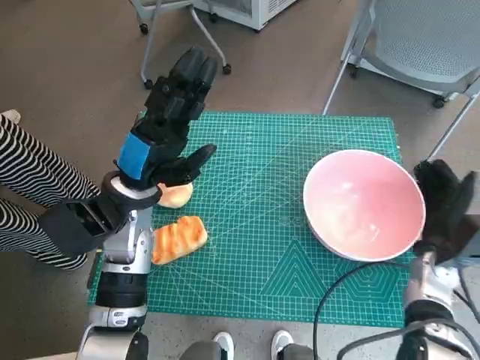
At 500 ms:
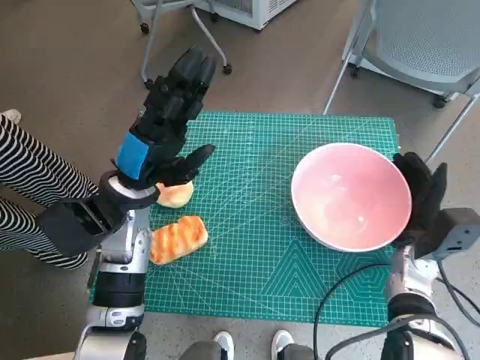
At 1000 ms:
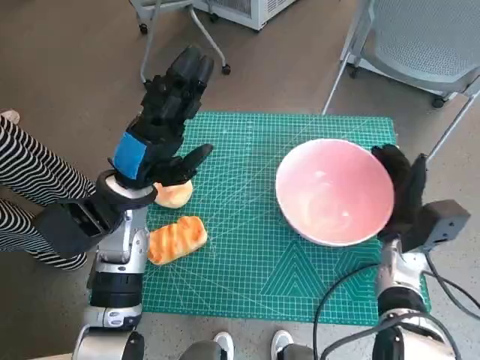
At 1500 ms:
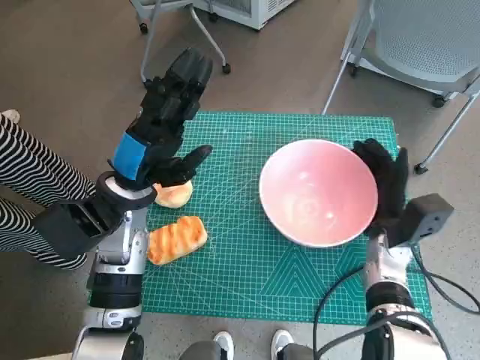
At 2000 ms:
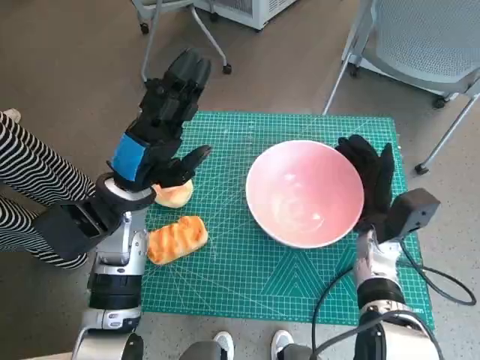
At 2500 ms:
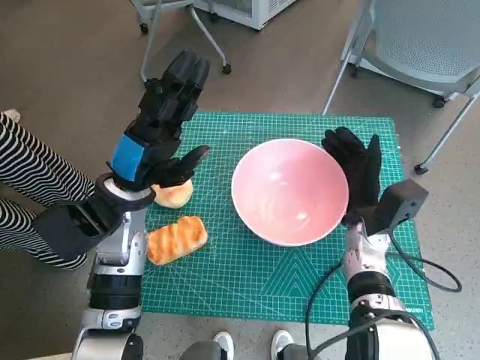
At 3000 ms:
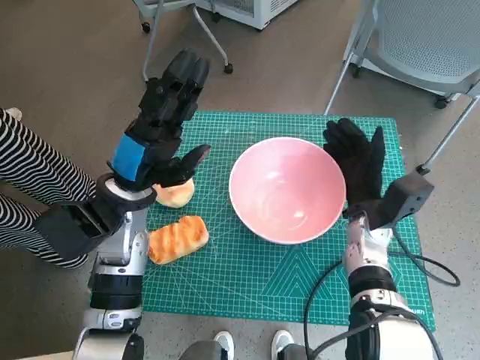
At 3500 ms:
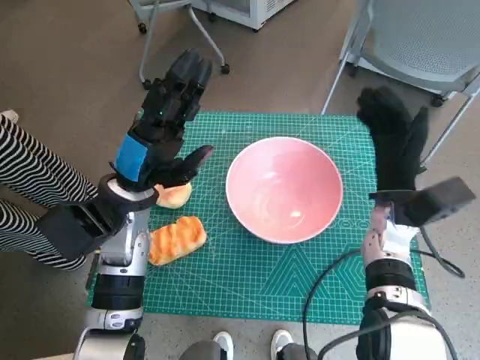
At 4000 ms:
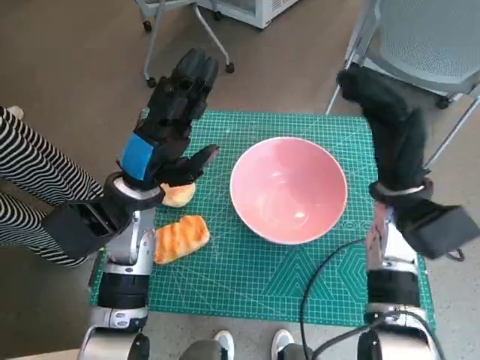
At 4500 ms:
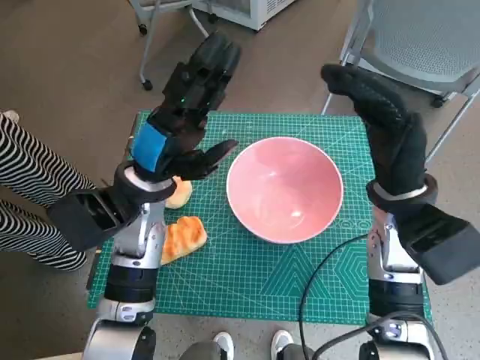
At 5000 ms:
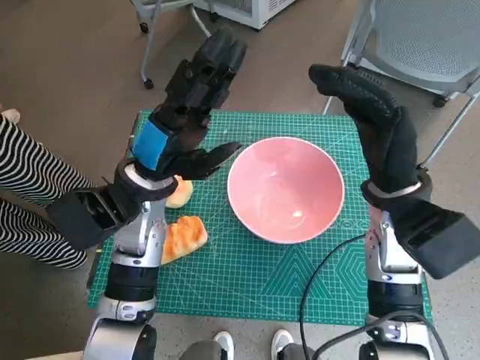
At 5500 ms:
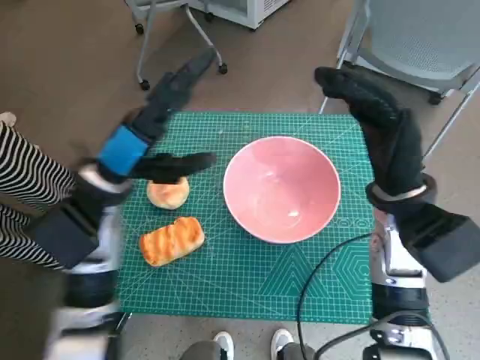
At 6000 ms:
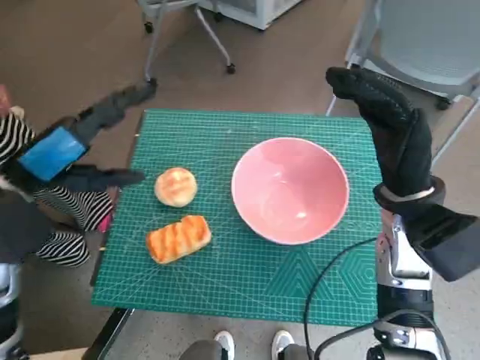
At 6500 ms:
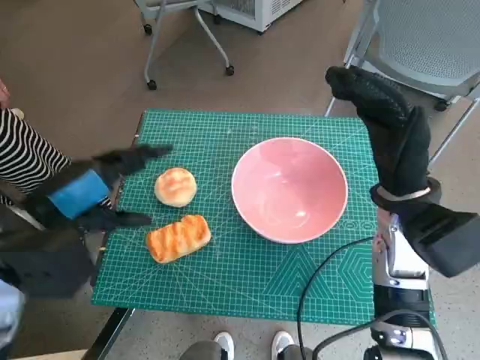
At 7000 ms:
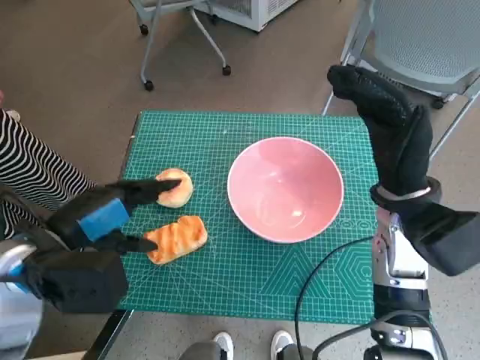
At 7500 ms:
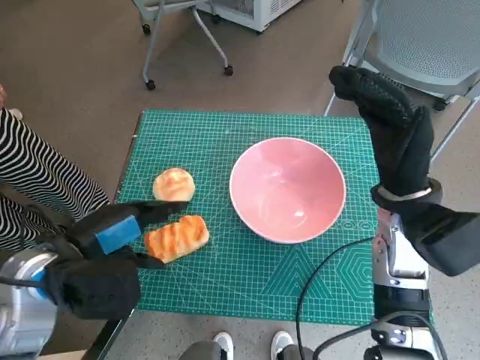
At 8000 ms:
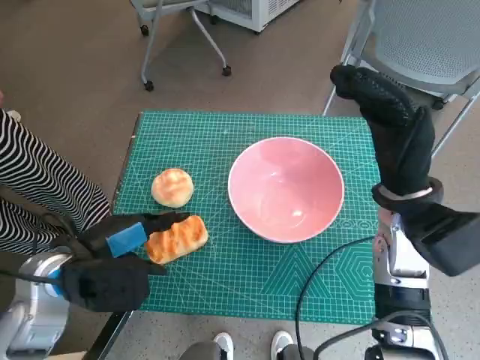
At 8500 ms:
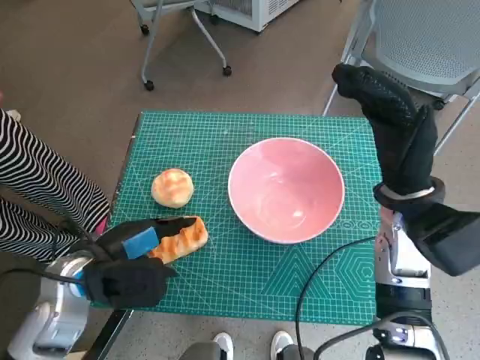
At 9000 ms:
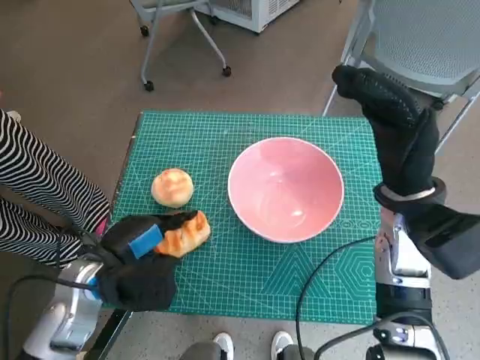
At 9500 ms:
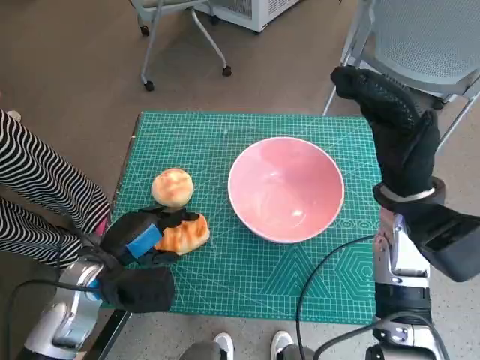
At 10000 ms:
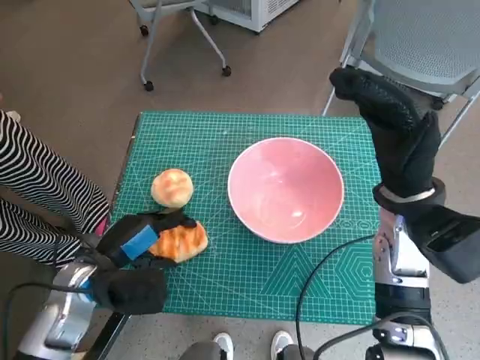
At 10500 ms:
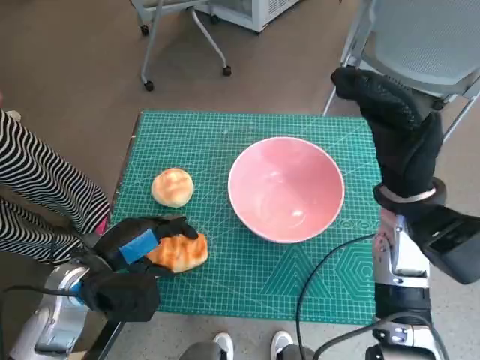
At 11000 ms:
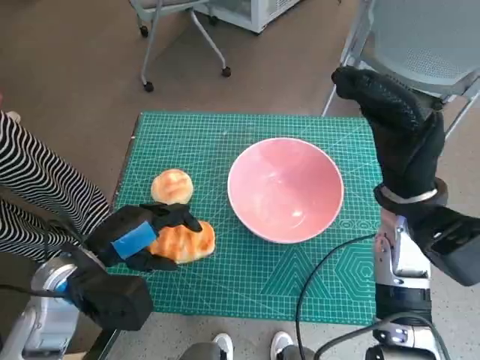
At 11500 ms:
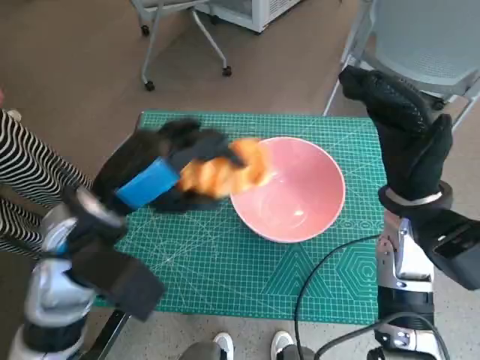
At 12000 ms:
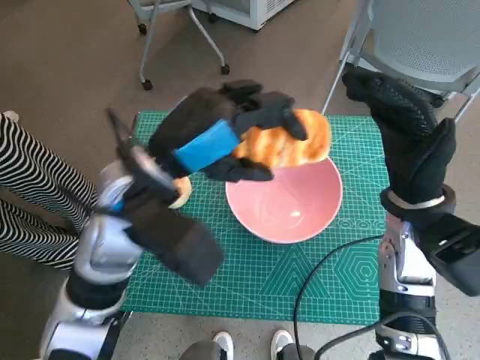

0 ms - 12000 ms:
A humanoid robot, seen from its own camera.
Task of the whole recording: Push the bowl into the center of the table and put the bread into the bowl.
Step, 0 ms - 3500 ms: Move the pink bowl to the center of table with right hand.
Step, 4000 ms - 10000 ms: Grasp the long bread with left hand.
0 ms - 2000 ms: The right hand shifts approximately 10 cm to the left.
2000 ms - 4000 ms: The right hand is displaced upward by some 10 cm.
4000 ms - 6000 ms: The left hand is displaced to the left, upward and backward by about 15 cm.
6000 ms - 8000 ms: The left hand goes approximately 10 cm downward.
8000 ms - 10000 ms: The left hand heads downward, covering about 5 cm.
10000 ms - 12000 ms: The left hand moves upward and to the right, some 20 cm.

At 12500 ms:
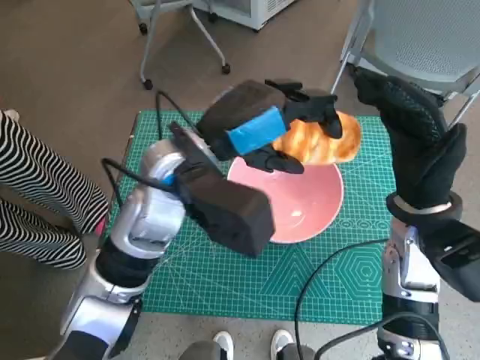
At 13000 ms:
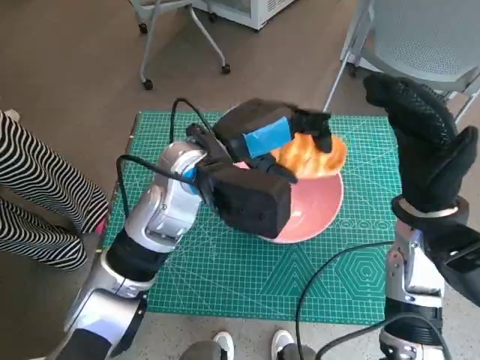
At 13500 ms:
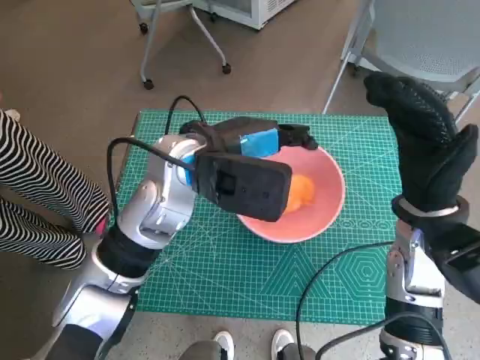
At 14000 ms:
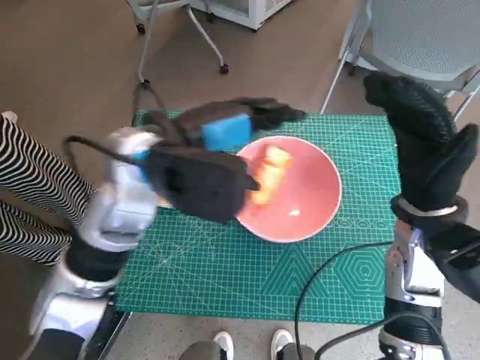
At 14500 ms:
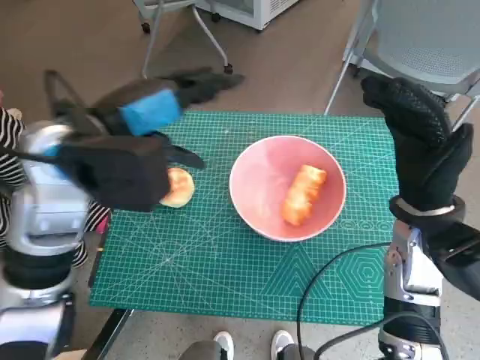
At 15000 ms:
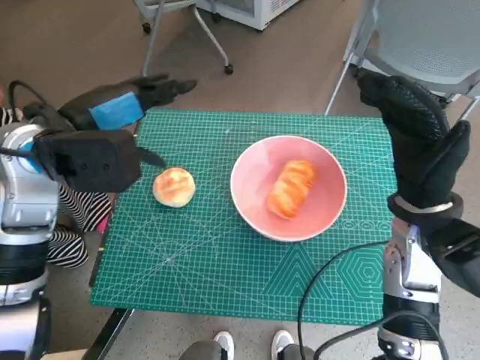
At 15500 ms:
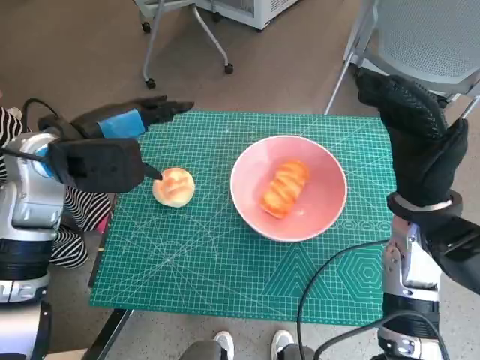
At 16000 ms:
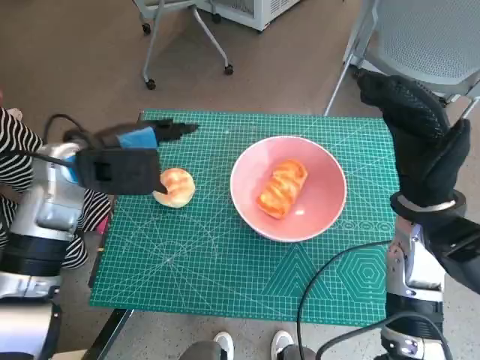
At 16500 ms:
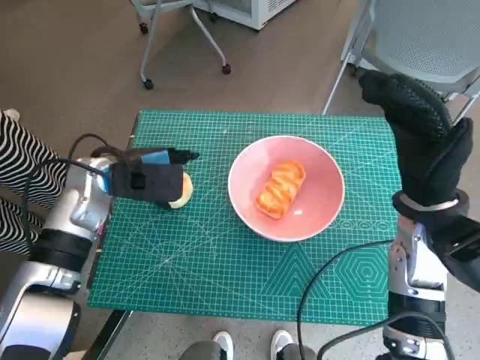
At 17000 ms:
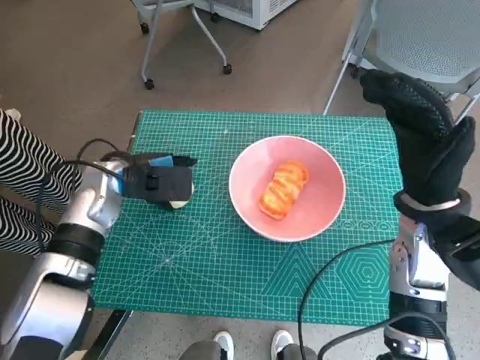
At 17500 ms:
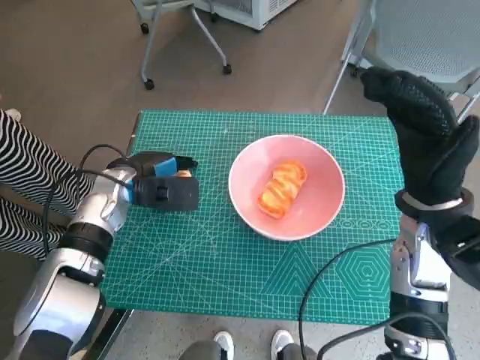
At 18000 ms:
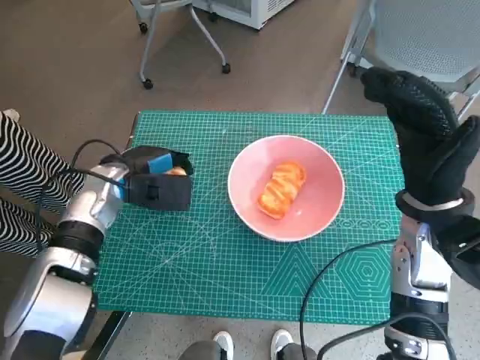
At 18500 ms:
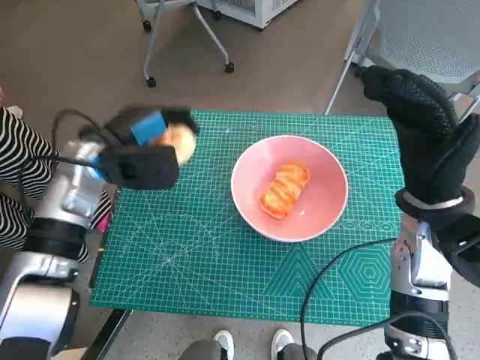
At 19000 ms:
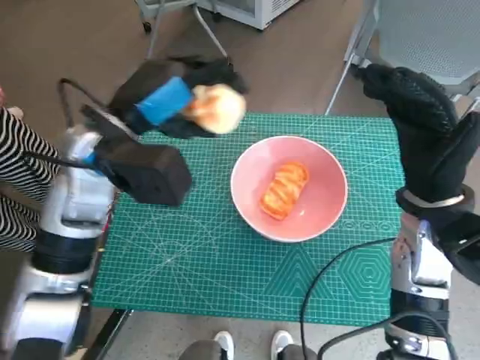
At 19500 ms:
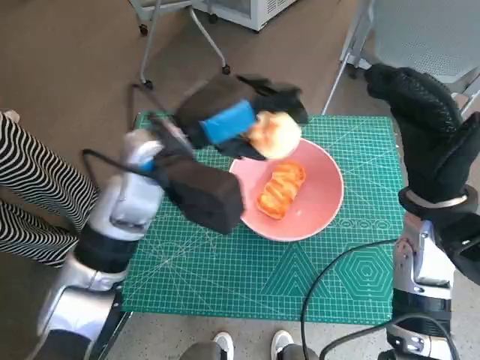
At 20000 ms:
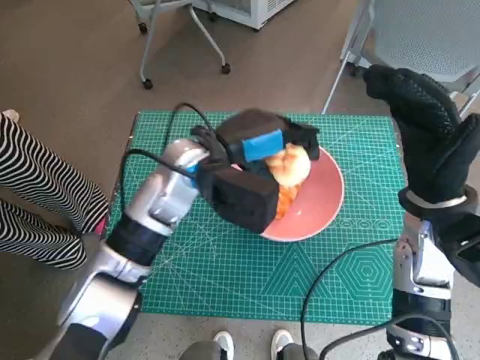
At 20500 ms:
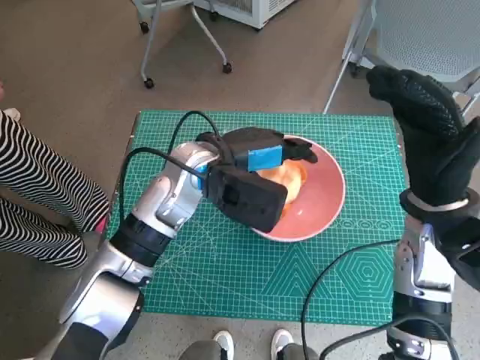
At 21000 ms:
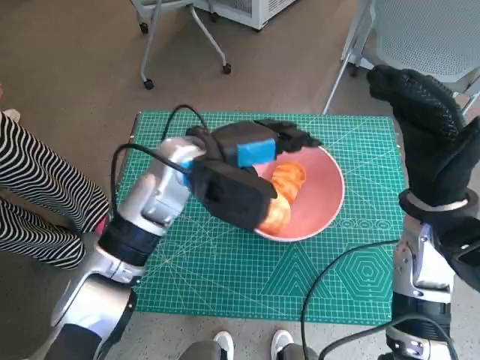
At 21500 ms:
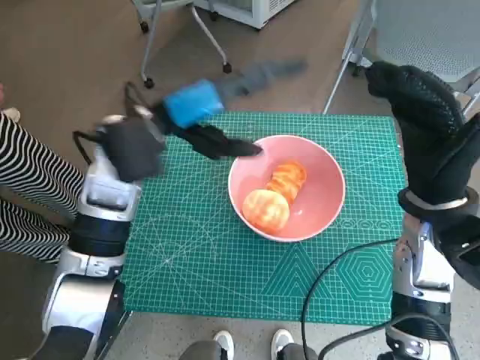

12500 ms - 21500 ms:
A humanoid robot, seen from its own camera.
Task of the whole recording: Push the bowl into the center of the table and put the bread into the bowl.
Step, 14500 ms - 17500 ms: Grasp the round bread with left hand.
Step, 18000 ms - 20500 ms: Place the round bread in pink bowl with left hand.
12500 ms - 14500 ms: The left hand travels to the left by some 10 cm.
14500 ms - 17000 ms: The left hand shifts approximately 15 cm downward and forward.
17000 ms - 19500 ms: The left hand heads upward and to the right, covering some 15 cm.

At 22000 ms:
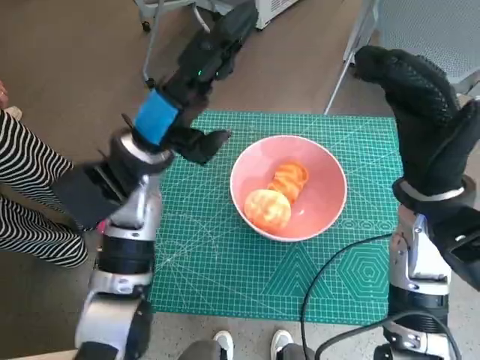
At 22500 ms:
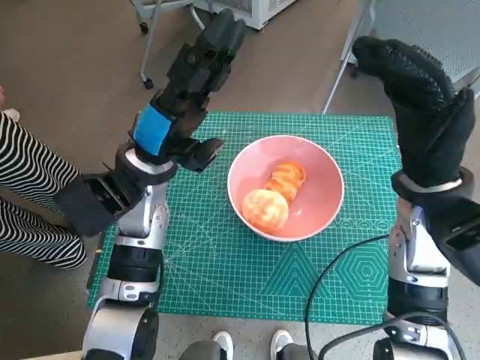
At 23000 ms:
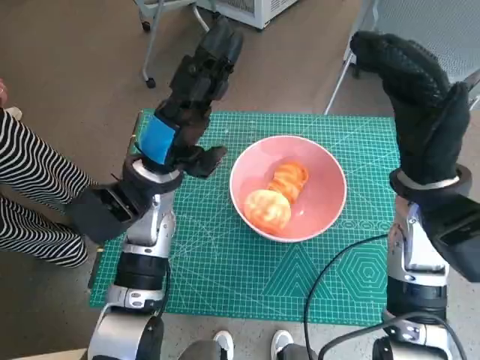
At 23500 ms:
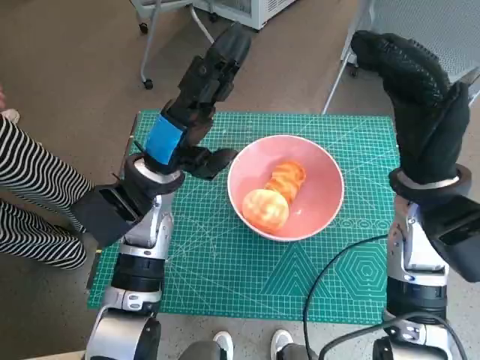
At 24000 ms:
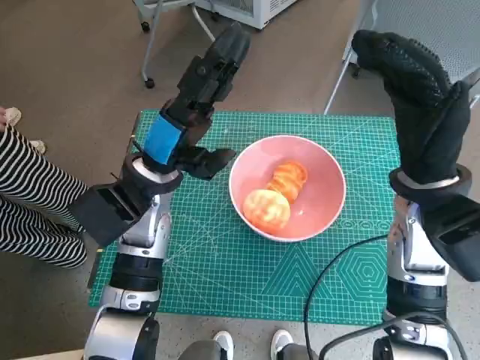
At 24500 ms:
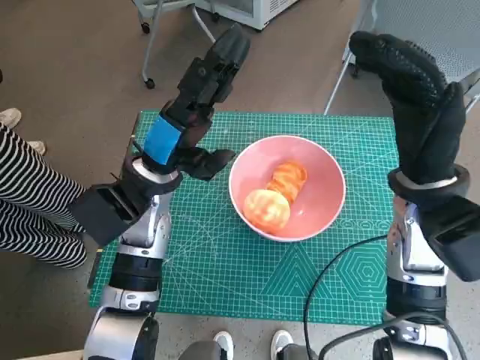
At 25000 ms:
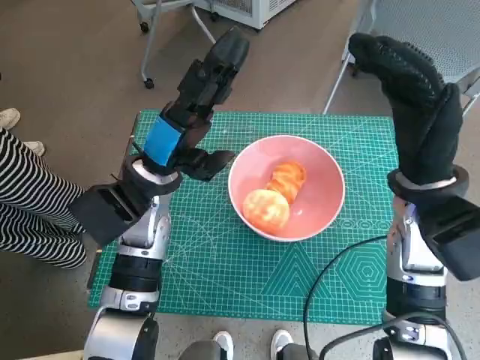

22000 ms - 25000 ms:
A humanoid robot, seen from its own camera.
Task of the whole recording: Push the bowl into the center of the table and put the bread into the bowl.
23500 ms - 25000 ms: Both hands stay put.

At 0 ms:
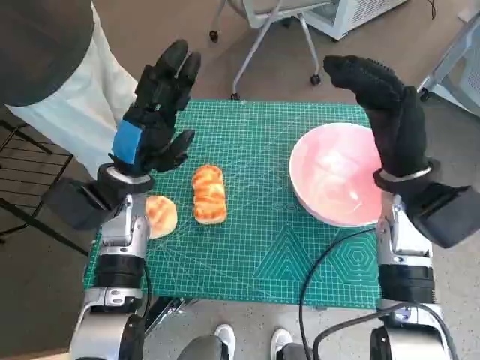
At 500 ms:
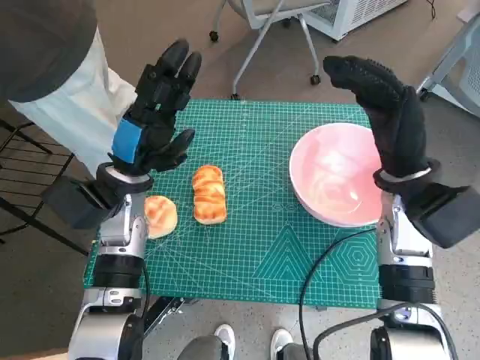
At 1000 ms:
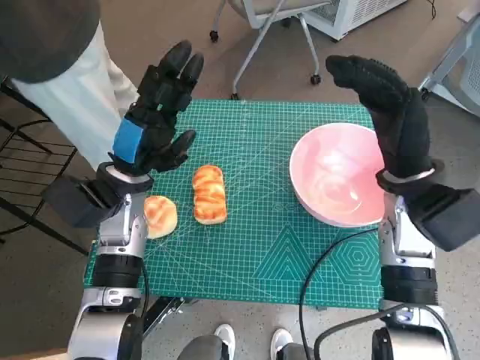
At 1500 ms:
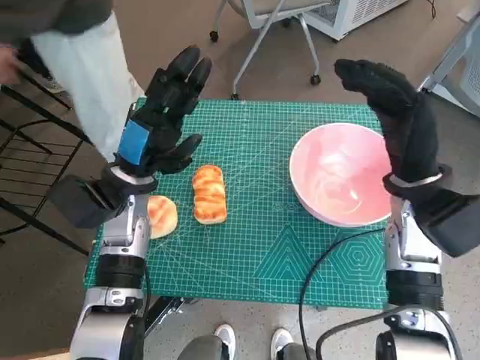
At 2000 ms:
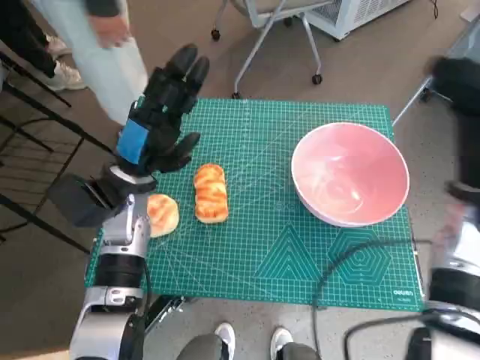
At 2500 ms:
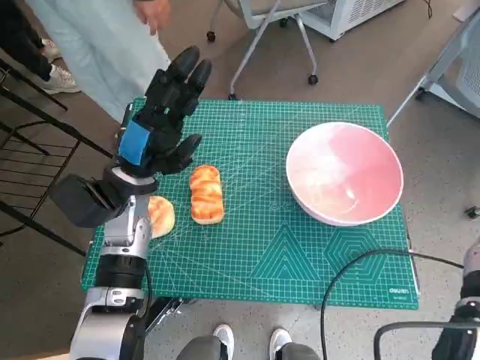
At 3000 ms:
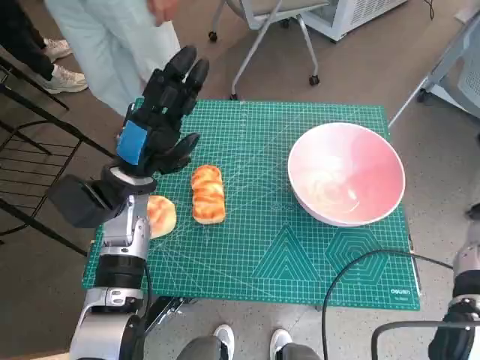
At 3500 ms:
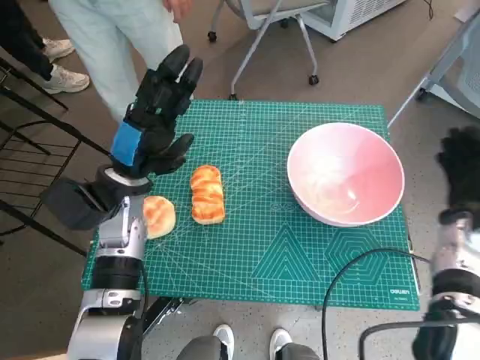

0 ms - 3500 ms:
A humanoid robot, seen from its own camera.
Task of the whole recording: Push the bowl into the center of the table and put the bread into the bowl.
2000 ms - 3500 ms: The right hand shifts some 10 cm downward.
